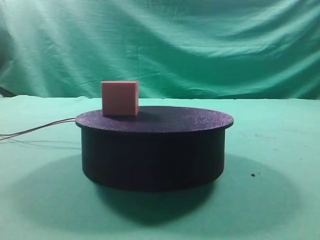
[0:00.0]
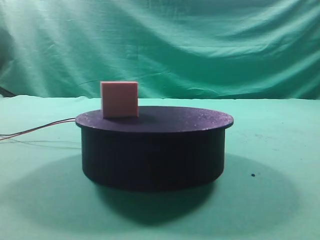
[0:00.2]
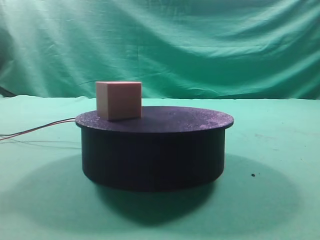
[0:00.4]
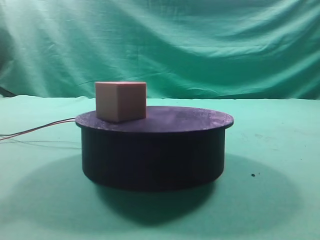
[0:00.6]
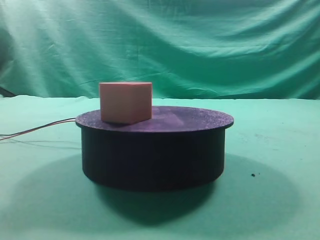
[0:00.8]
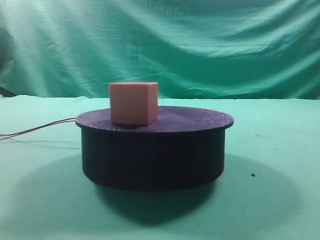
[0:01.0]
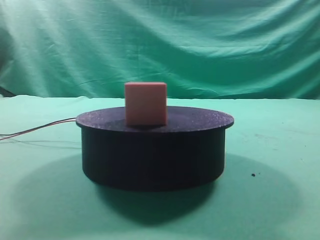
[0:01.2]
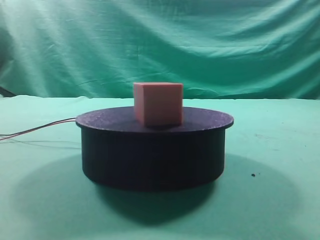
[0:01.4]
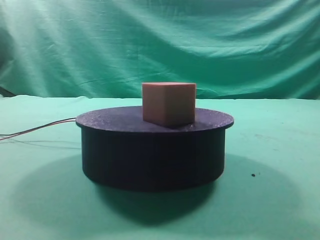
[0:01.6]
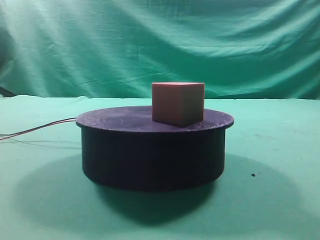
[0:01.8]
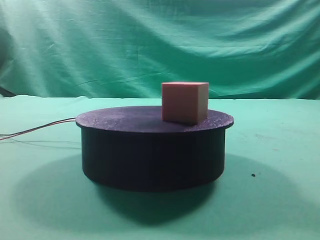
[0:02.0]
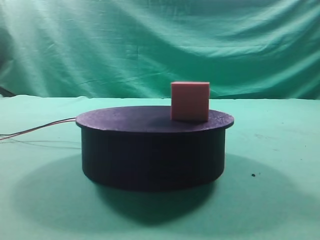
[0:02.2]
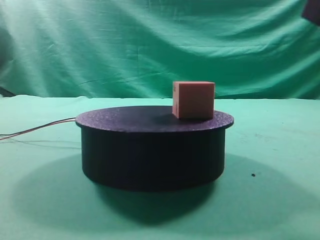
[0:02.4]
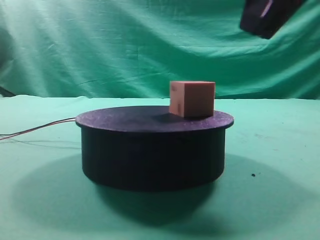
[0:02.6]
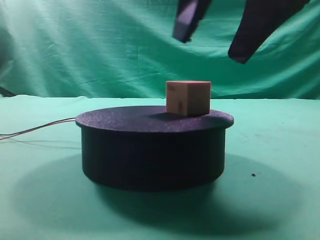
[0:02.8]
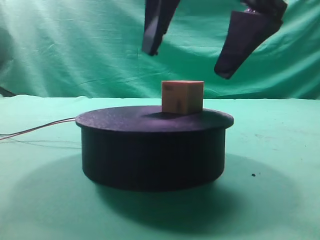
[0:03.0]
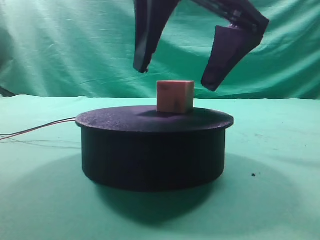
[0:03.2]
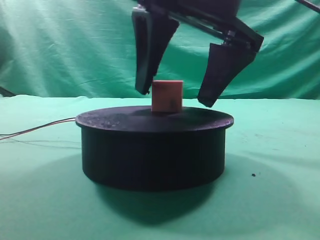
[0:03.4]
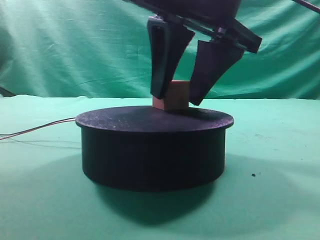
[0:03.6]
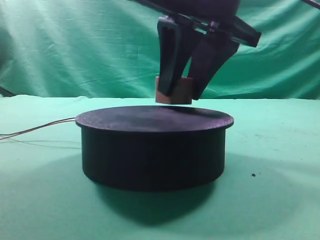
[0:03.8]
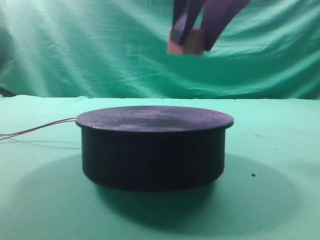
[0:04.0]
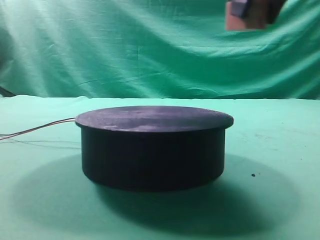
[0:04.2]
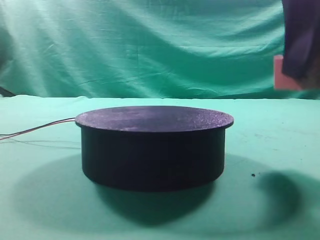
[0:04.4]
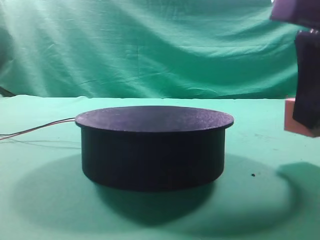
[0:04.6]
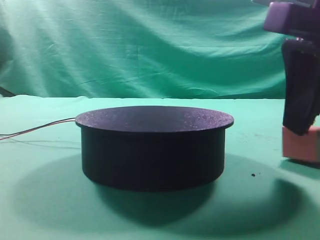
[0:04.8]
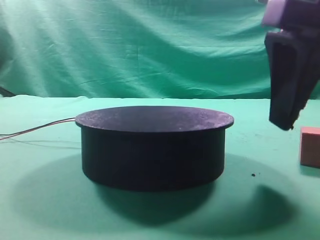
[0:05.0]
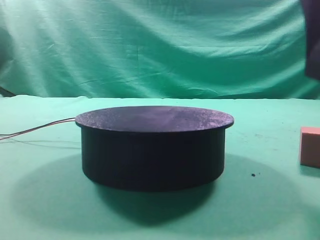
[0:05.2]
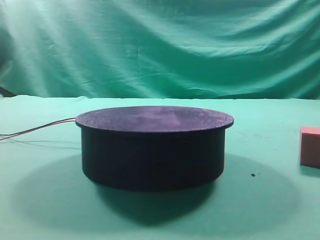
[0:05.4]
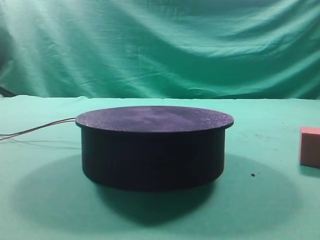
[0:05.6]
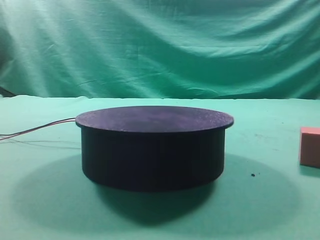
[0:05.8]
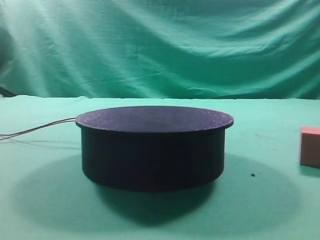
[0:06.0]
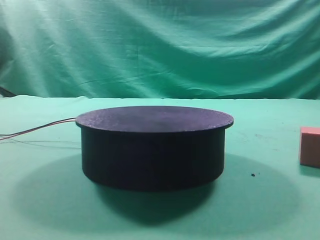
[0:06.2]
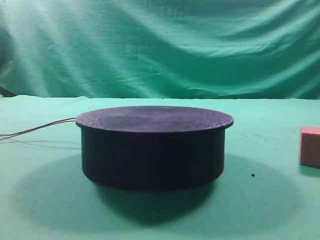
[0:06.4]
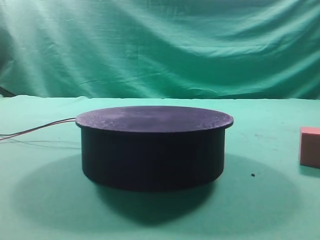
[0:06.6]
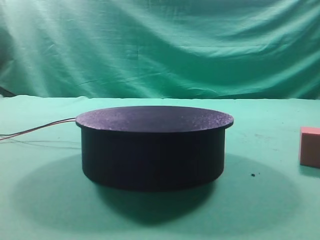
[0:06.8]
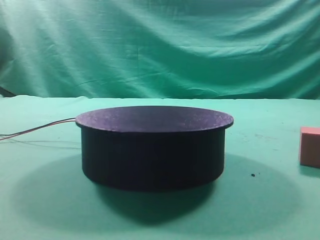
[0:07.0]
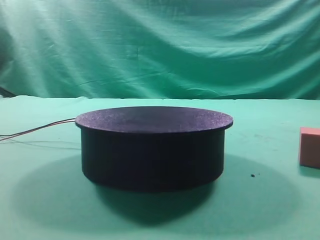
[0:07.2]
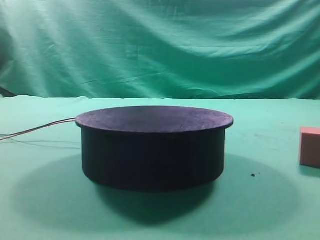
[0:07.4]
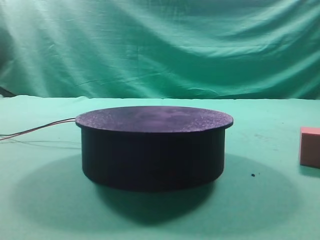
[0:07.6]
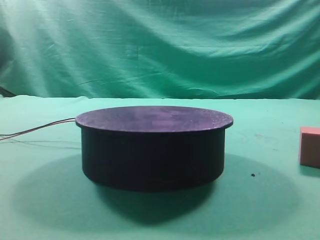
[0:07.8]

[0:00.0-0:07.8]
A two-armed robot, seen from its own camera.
Task of the whole recording: grasp the rotating cube-shaped block on the turntable and place it on the table.
Step, 0:00.0 to 0:03.8: Grasp the rotating cube-shaped block on the turntable.
Step, 0:04.0 to 0:05.0: Place the cube on the desk.
